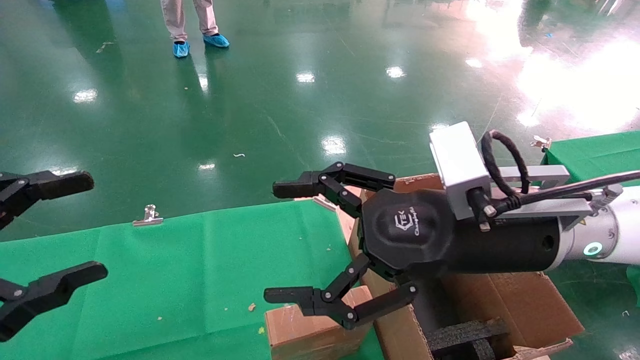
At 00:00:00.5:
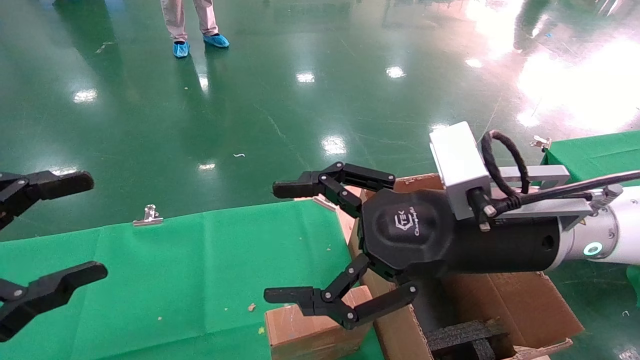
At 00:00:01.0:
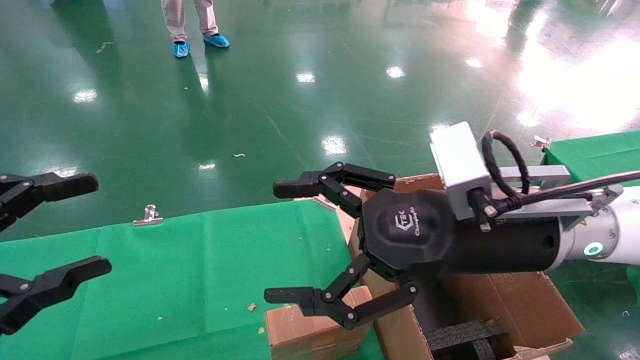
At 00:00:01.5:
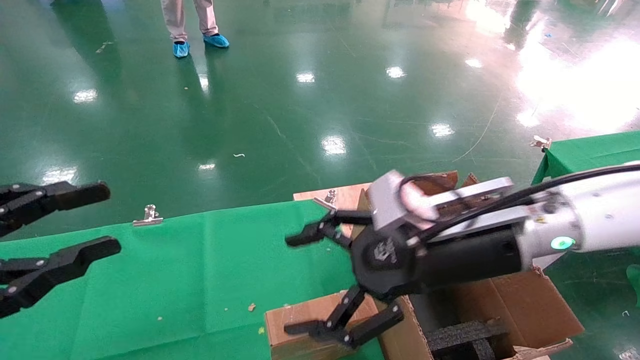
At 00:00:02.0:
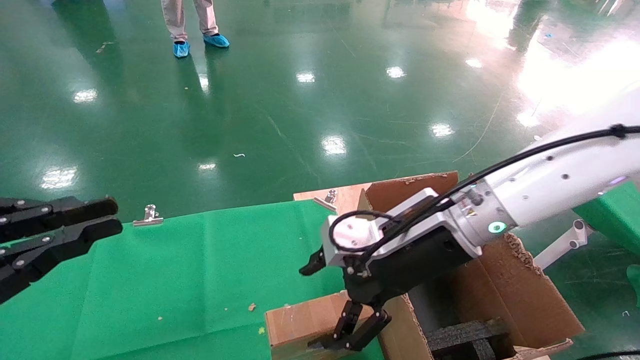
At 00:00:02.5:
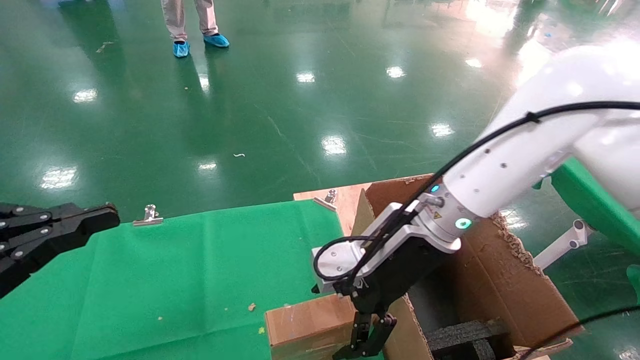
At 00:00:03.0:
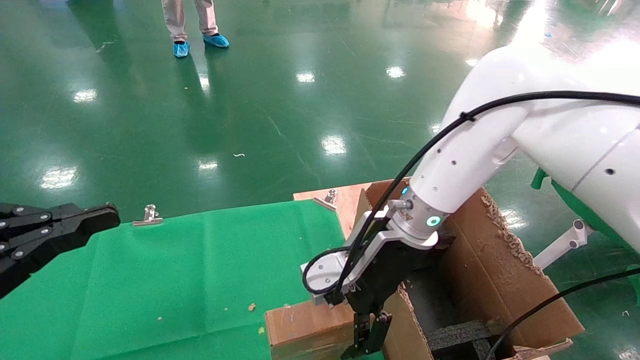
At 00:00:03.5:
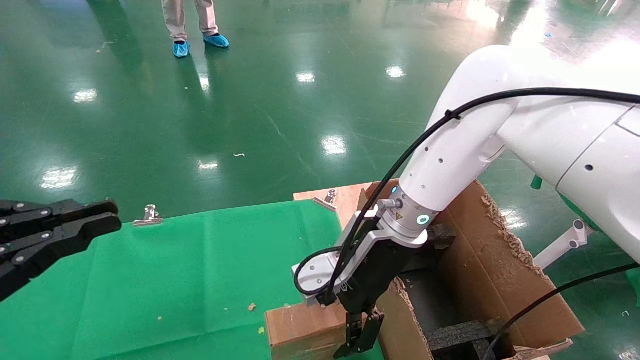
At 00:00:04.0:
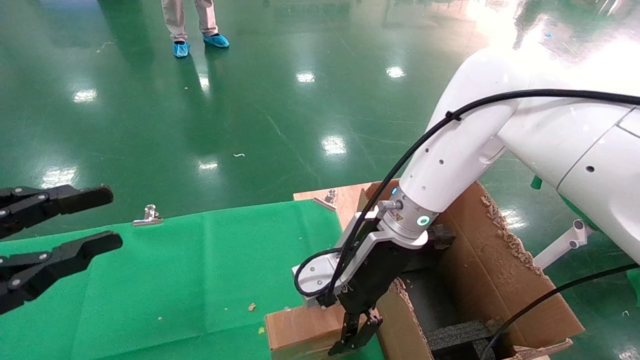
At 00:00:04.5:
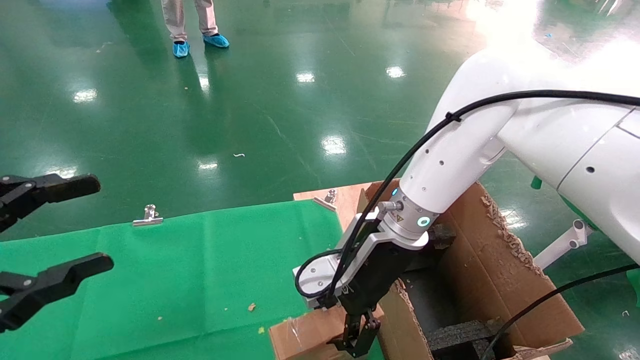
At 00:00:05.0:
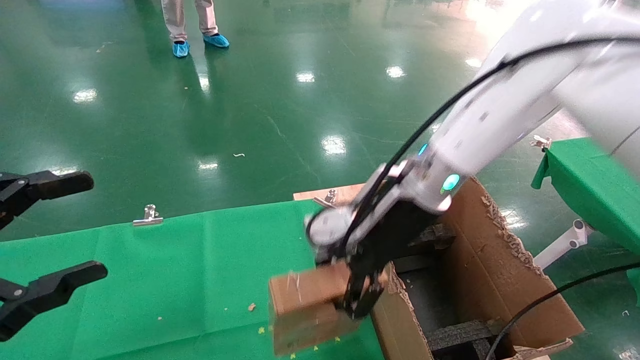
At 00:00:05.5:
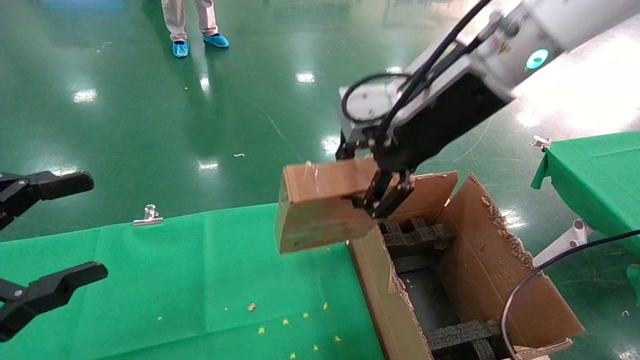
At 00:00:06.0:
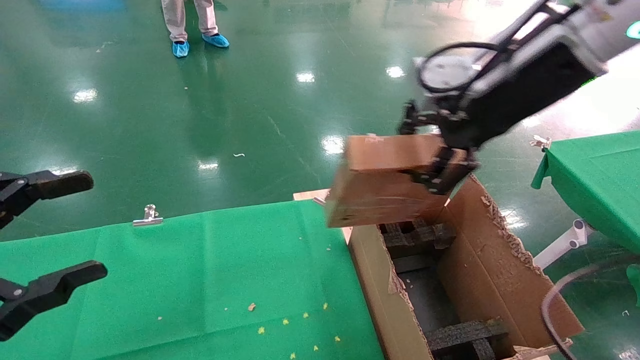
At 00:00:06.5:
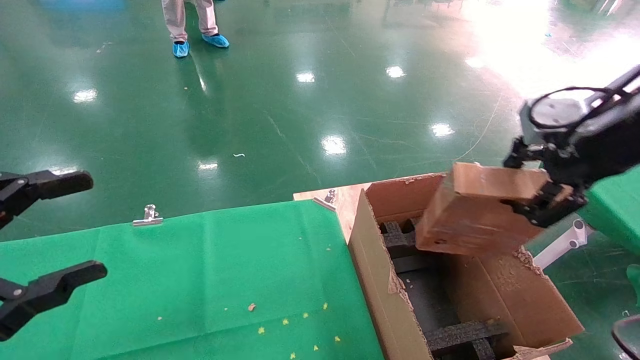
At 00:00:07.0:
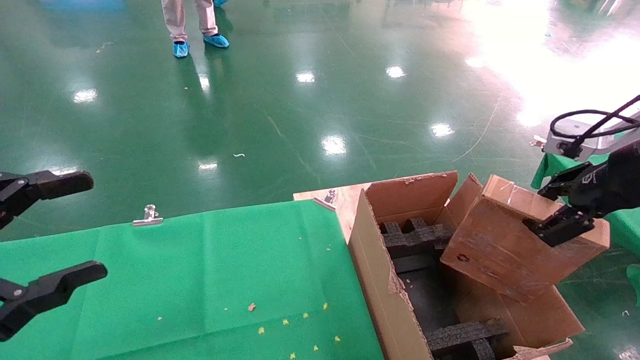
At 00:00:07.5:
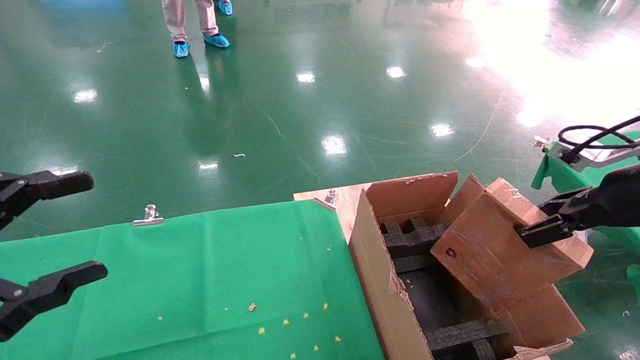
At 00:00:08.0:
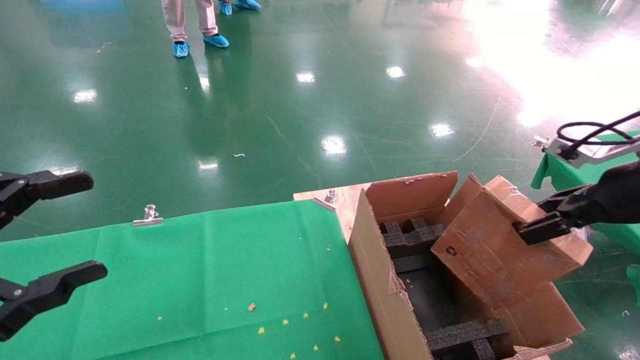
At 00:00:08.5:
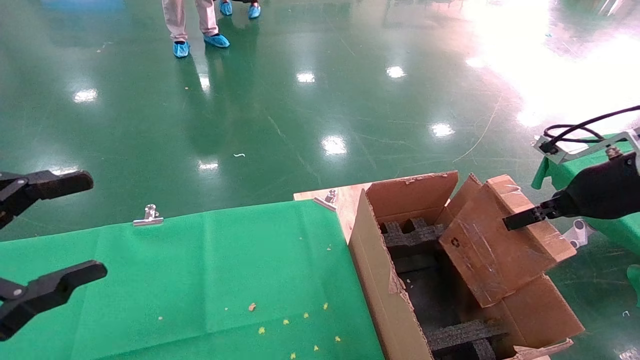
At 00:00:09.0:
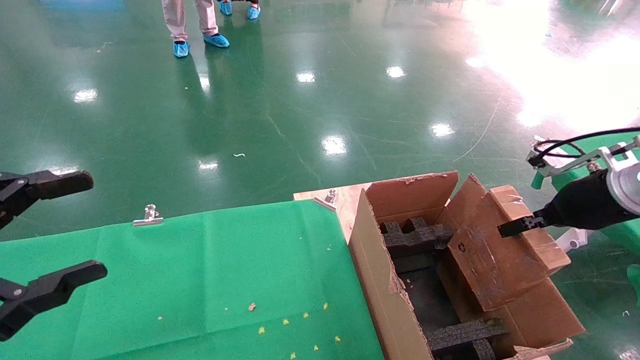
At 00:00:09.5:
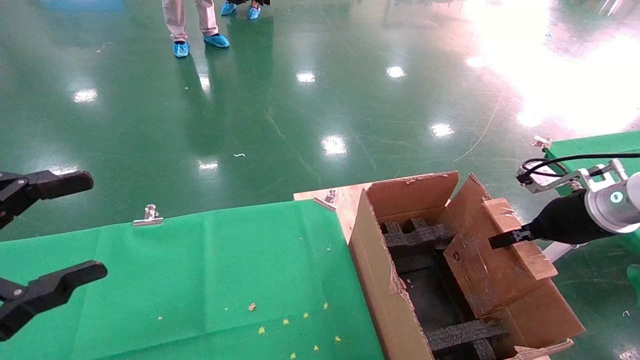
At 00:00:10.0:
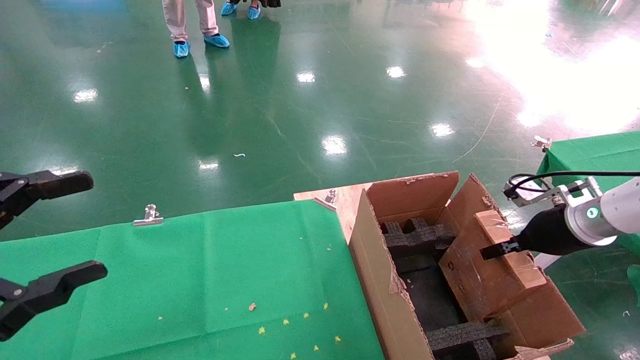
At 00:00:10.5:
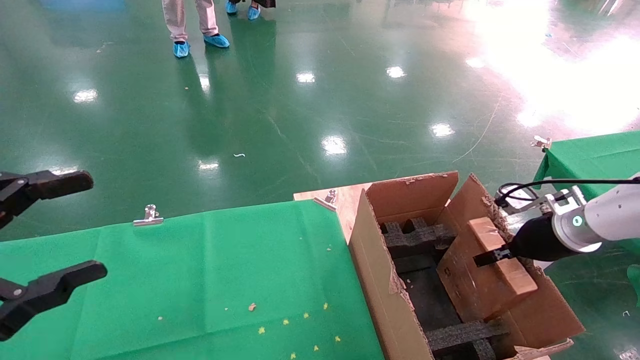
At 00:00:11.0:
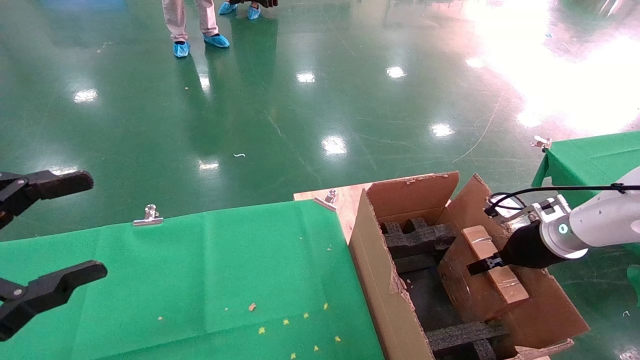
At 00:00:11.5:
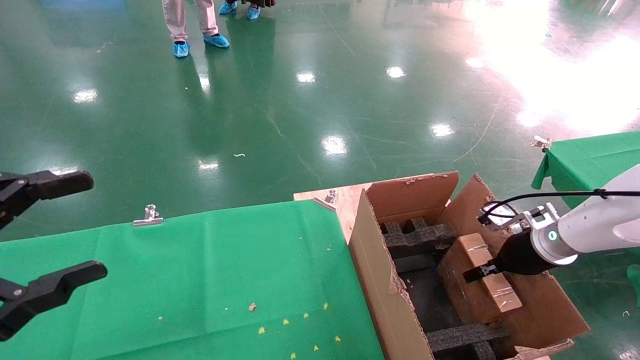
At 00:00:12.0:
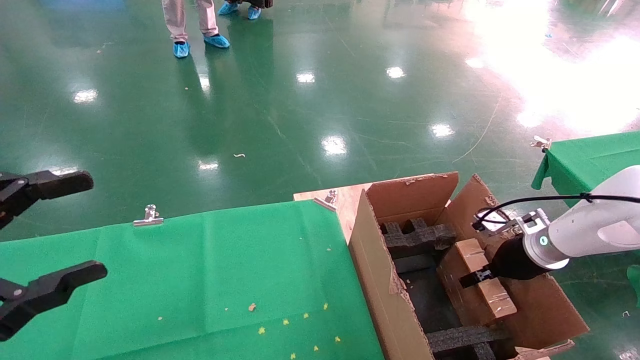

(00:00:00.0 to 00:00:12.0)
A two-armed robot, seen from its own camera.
Task of the whole recording: using a robotic arm to pick up a cardboard box and palace it the carton.
Step, 00:00:01.5 - 00:00:04.5: Pick up the mouse and the power cord paper box.
00:00:00.0 - 00:00:02.0: The right gripper moves forward, roughly 5 cm, while the left gripper closes its fingers.
00:00:02.0 - 00:00:04.0: The right gripper travels forward by approximately 5 cm.
00:00:04.0 - 00:00:06.0: The right gripper travels upward and to the right by about 25 cm, and closes up. Meanwhile the left gripper opens.
00:00:06.0 - 00:00:08.0: The right gripper moves to the right and downward, roughly 20 cm.
00:00:08.0 - 00:00:10.0: The right gripper moves downward and forward, about 15 cm.
00:00:10.0 - 00:00:12.0: The right gripper is displaced downward by about 10 cm.

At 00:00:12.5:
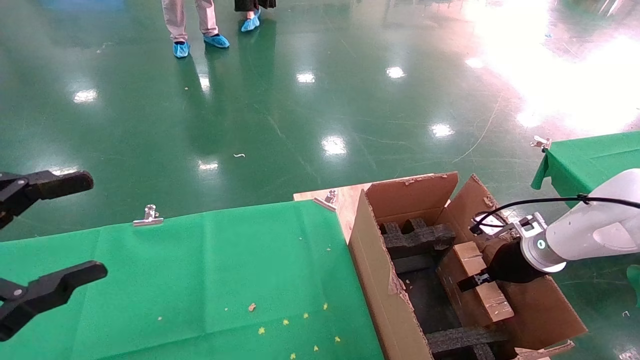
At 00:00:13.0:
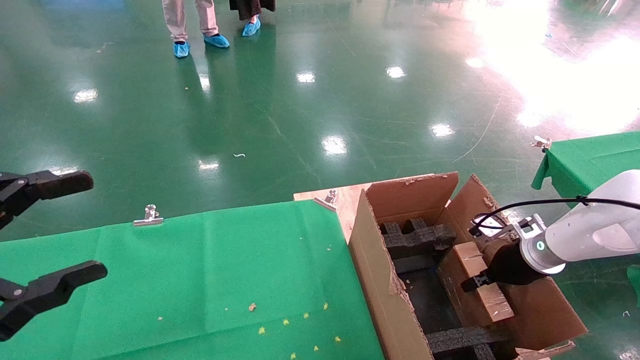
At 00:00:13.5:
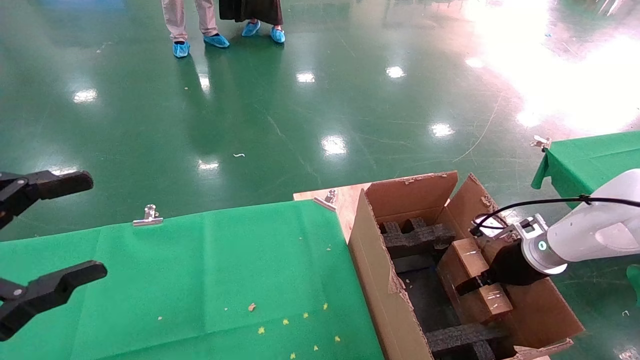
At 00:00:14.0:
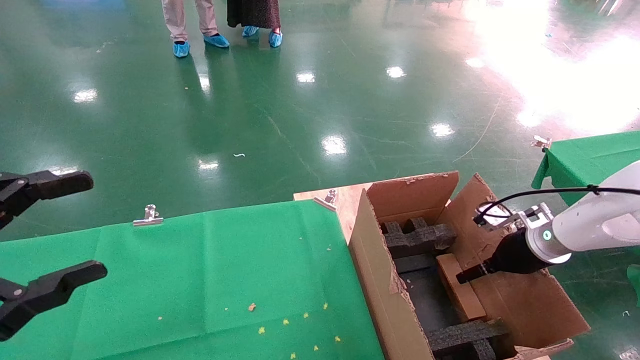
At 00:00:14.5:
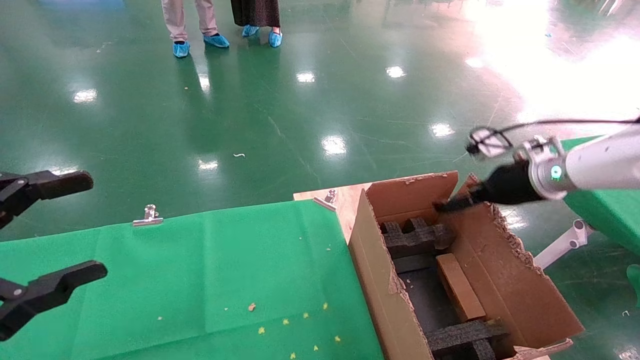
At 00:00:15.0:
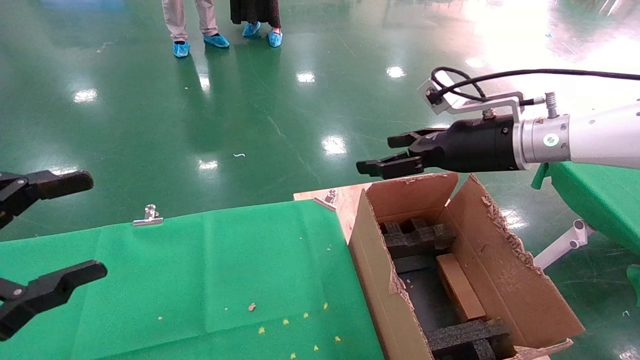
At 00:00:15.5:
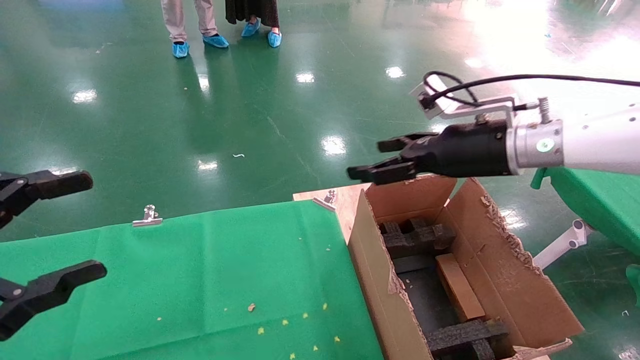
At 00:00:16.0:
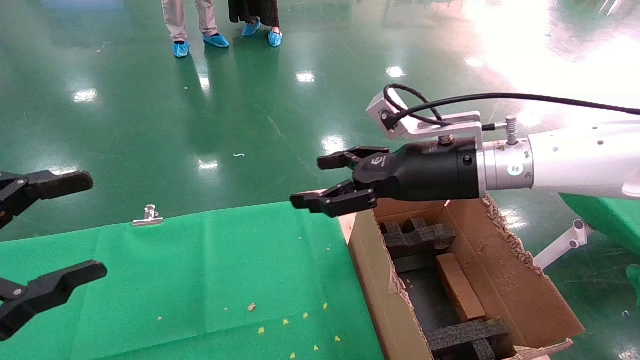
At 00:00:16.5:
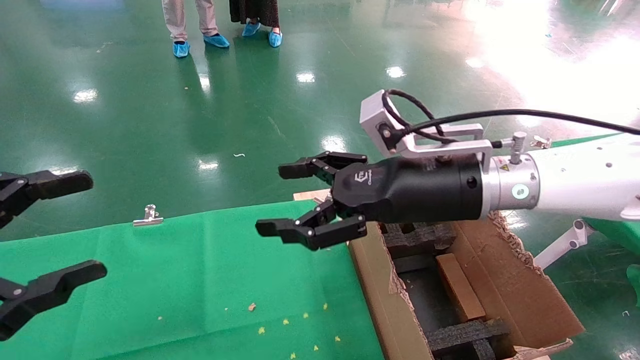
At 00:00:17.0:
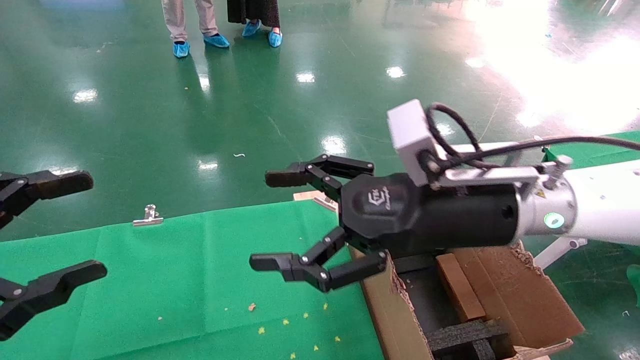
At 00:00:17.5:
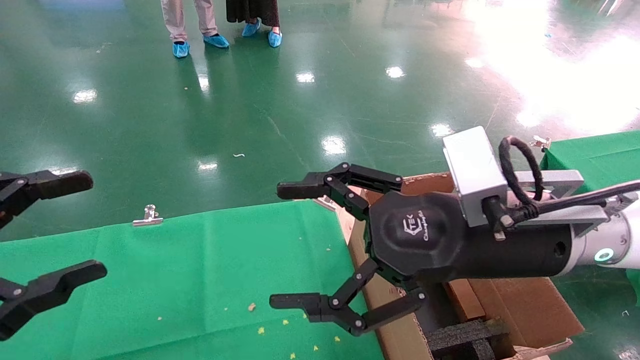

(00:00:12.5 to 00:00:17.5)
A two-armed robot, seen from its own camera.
Task of the whole recording: using a robotic arm to pick up a cardboard box and palace it the carton.
Step, 00:00:12.5 - 00:00:14.5: Place the mouse and the power cord paper box into the container.
00:00:12.5 - 00:00:15.0: The right gripper moves upward and to the left, about 25 cm, and opens up.
00:00:15.0 - 00:00:17.5: The right gripper shifts approximately 15 cm backward and to the left.
